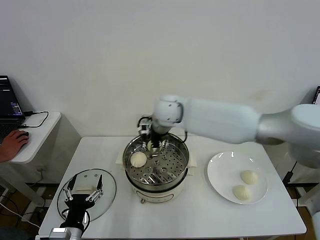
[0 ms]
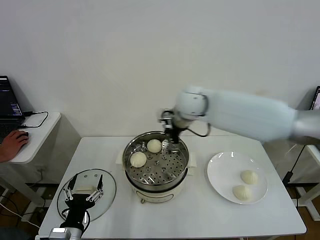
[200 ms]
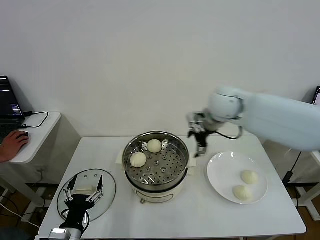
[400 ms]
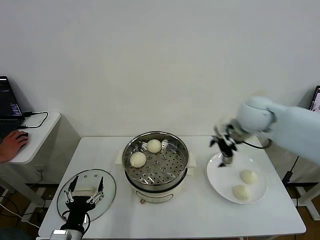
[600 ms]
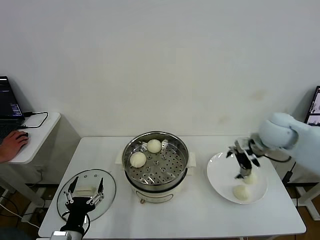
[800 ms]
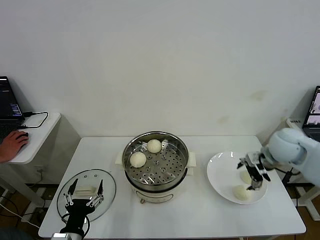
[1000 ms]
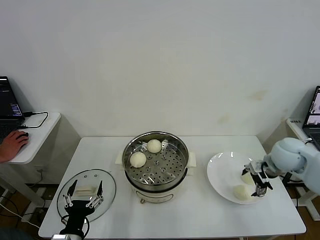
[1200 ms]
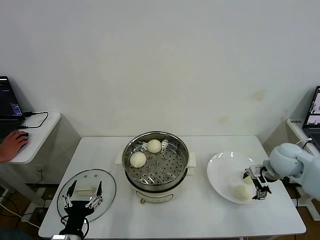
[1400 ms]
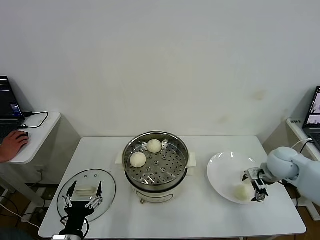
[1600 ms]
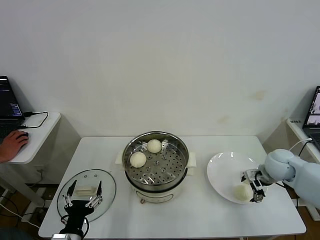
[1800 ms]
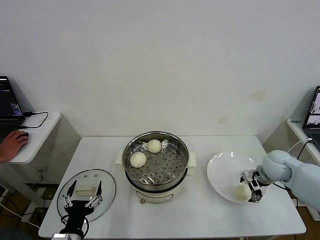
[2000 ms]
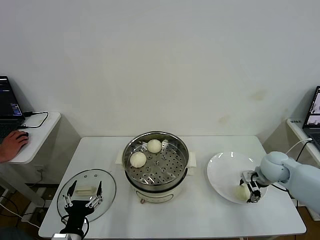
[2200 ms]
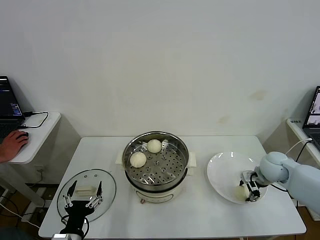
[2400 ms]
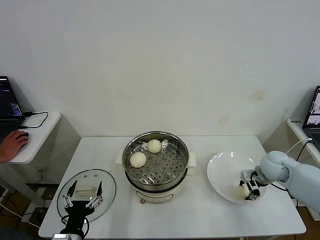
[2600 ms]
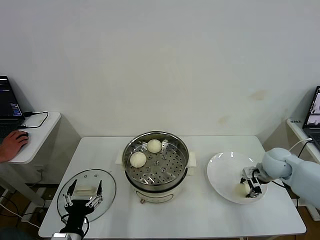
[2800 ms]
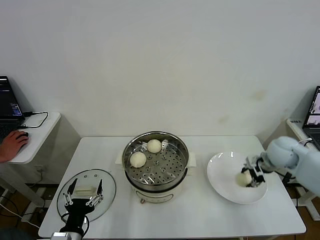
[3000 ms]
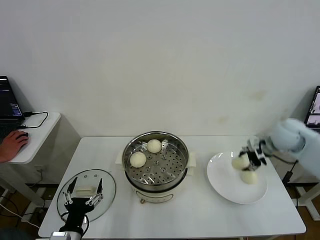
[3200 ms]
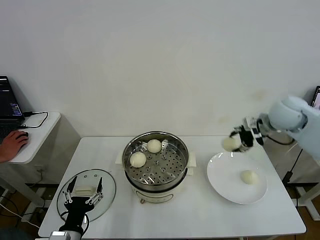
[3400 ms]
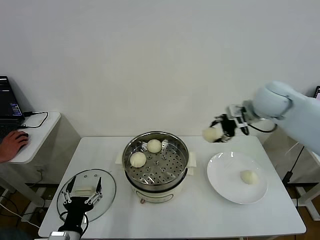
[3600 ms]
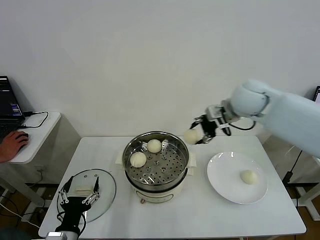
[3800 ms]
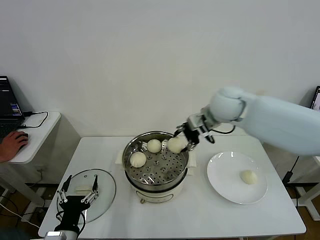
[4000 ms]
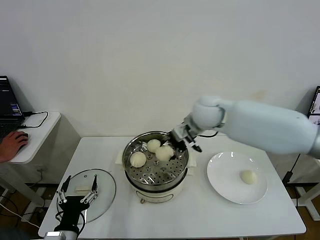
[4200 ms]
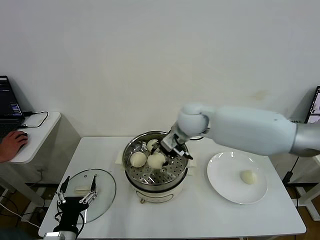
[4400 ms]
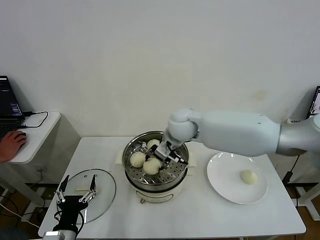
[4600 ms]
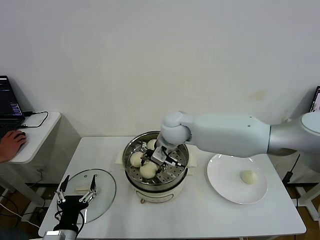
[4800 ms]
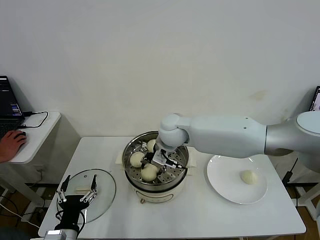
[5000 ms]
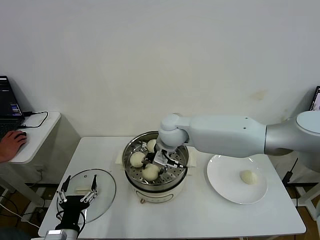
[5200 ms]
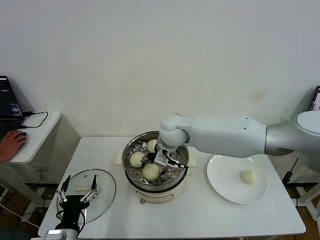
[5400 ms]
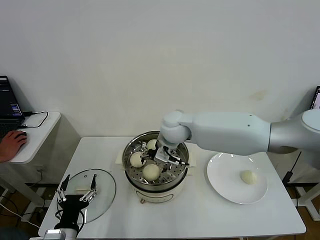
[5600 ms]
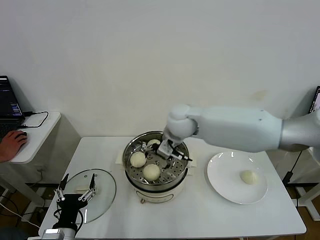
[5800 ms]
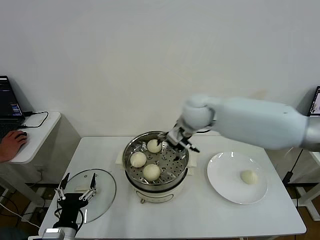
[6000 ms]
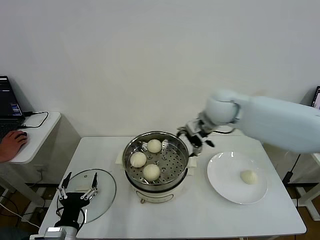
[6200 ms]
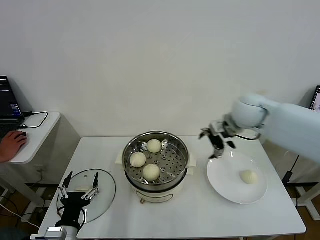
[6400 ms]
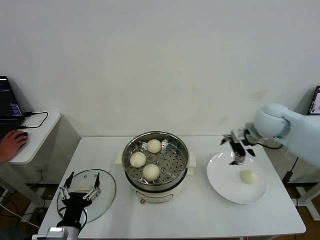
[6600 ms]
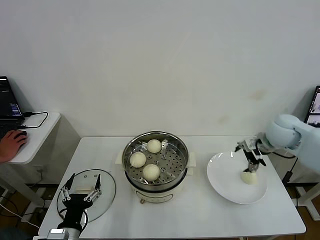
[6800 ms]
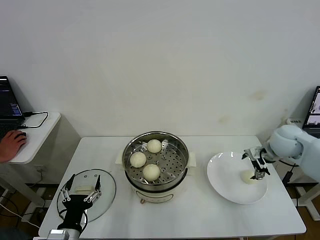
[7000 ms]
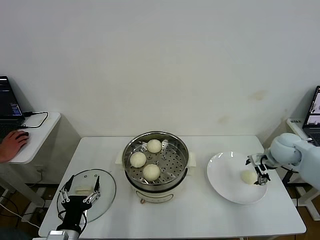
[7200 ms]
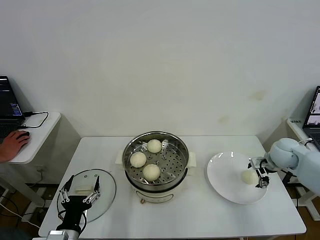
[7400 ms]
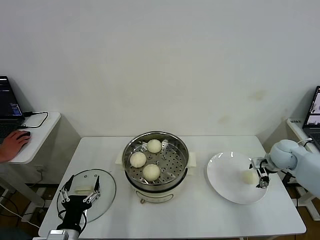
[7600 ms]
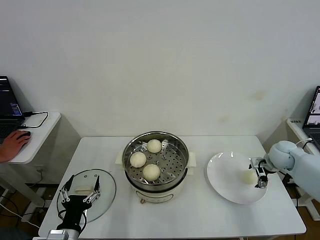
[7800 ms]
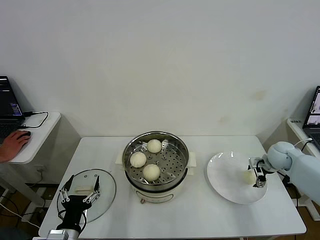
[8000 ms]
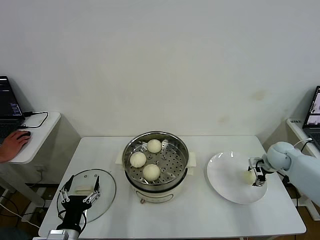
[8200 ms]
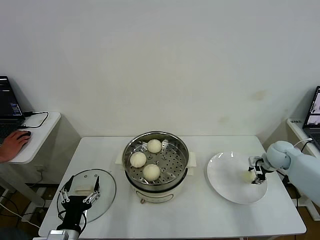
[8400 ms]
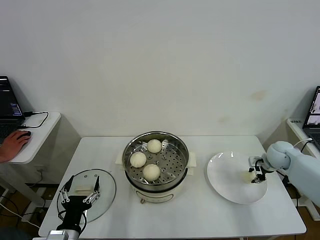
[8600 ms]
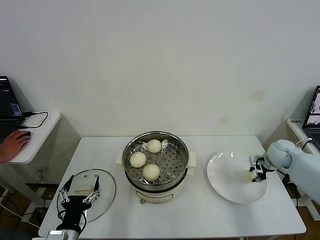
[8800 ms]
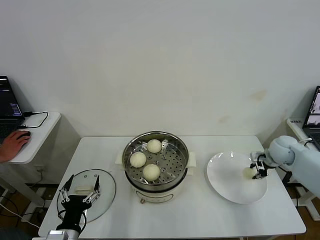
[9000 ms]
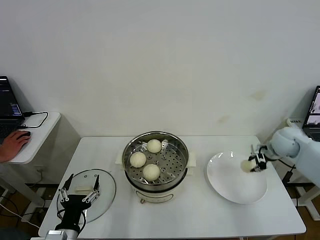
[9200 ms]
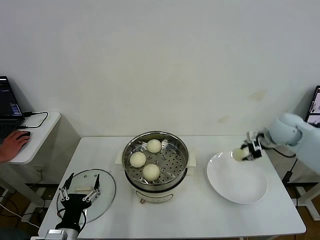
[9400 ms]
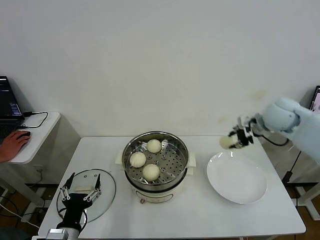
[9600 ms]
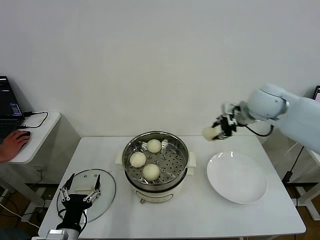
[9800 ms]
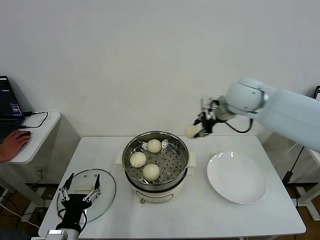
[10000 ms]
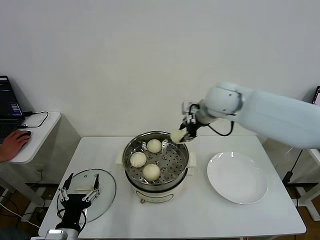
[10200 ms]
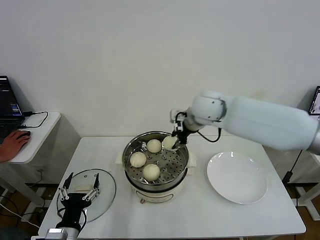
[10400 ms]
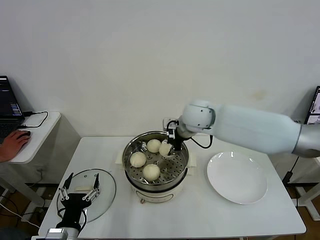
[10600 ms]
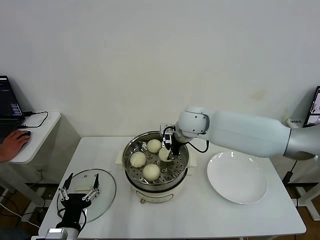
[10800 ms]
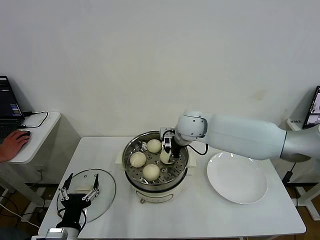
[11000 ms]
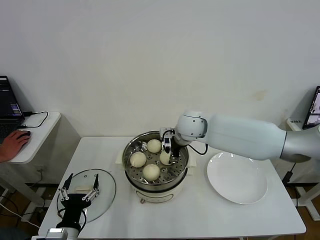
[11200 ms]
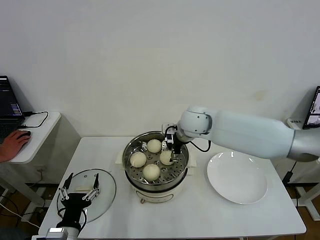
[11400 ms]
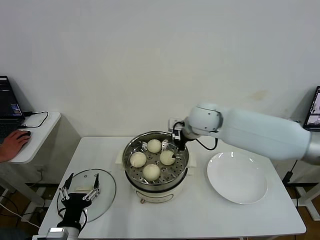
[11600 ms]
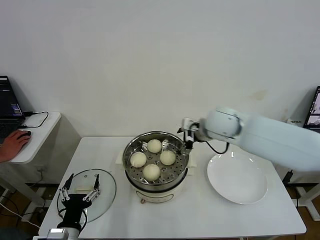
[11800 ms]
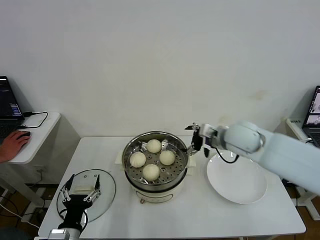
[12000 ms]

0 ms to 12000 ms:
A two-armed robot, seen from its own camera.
Task of the whole recording: take steamed baozi put them in steamer then cover it.
Step, 0 ms to 2400 ms: Grasp the baozi in the plate with right gripper.
Step, 2800 ms to 5600 ms: Place the baozi on the steamer with right gripper.
Step, 5800 ms to 8400 ms: Grasp the baozi in the plate with right gripper.
Step, 8600 ms to 11200 ms: Place the baozi on the steamer with right gripper.
0 ms to 1600 ms: The right gripper travels to the right and downward by about 40 cm.
1600 ms to 3000 ms: The right gripper changes place by some 5 cm, and closes its fingers.
3000 ms to 4400 ms: The right gripper is displaced to the left by roughly 30 cm.
4400 ms to 6000 ms: The right gripper opens.
6000 ms to 7600 ms: The right gripper heads to the right and downward, covering some 35 cm.
7600 ms to 9000 ms: The right gripper closes up.
9000 ms to 10400 ms: The right gripper goes about 35 cm to the left and upward.
10400 ms to 12000 ms: The right gripper travels to the right, backward and downward by some 15 cm, and opens its fingers.

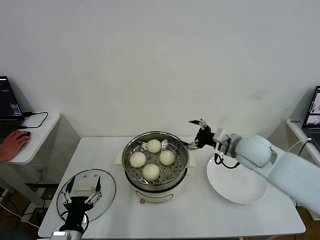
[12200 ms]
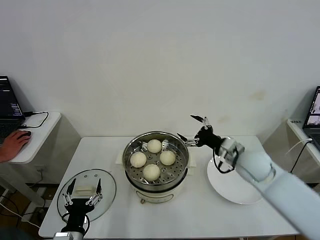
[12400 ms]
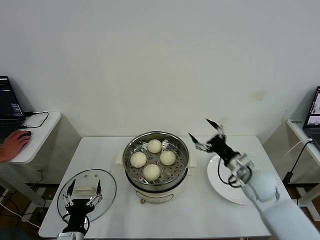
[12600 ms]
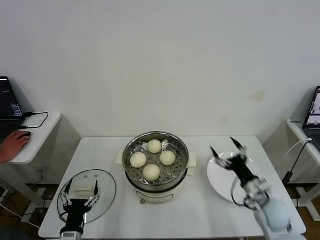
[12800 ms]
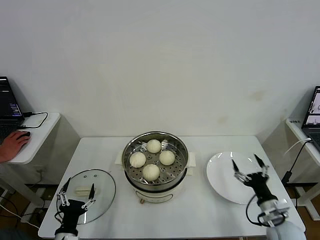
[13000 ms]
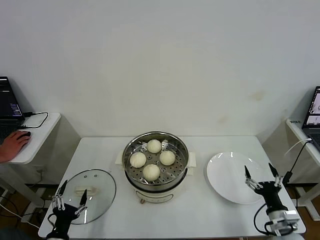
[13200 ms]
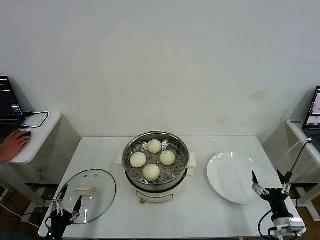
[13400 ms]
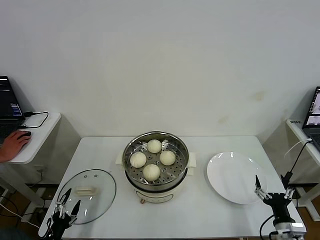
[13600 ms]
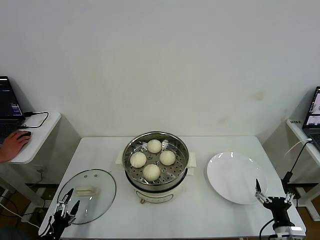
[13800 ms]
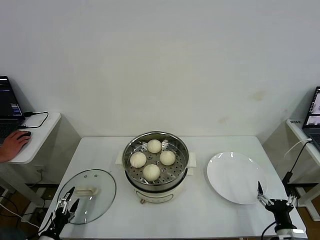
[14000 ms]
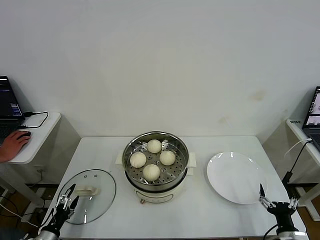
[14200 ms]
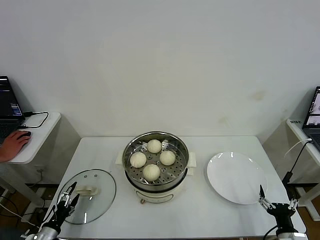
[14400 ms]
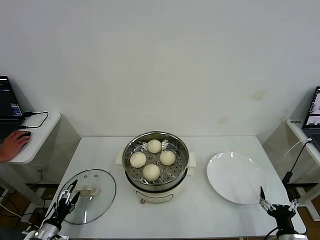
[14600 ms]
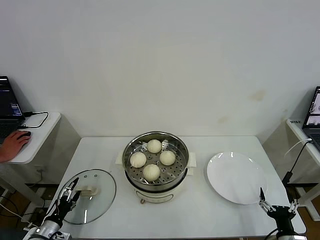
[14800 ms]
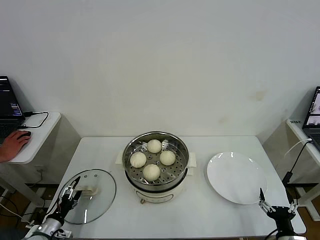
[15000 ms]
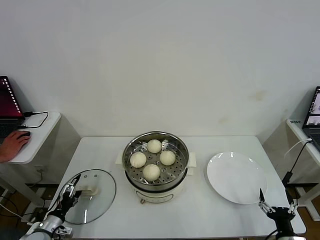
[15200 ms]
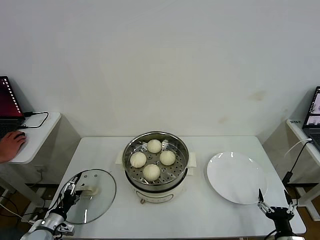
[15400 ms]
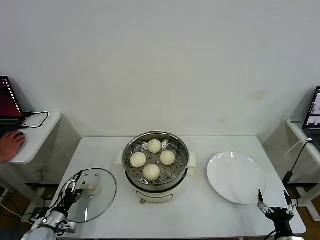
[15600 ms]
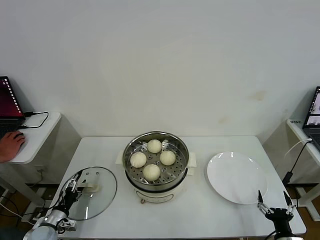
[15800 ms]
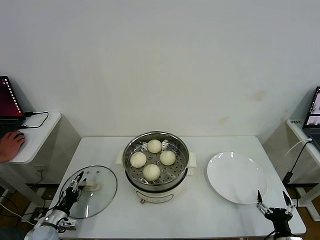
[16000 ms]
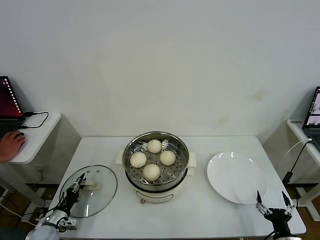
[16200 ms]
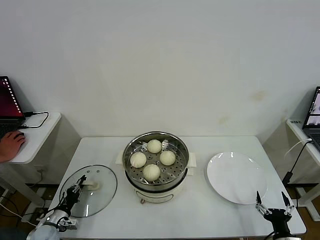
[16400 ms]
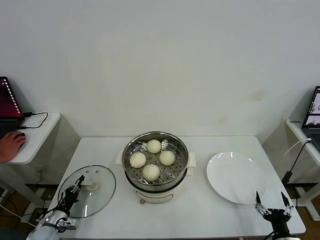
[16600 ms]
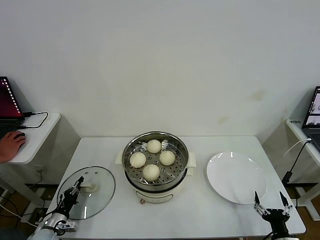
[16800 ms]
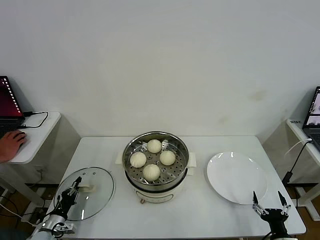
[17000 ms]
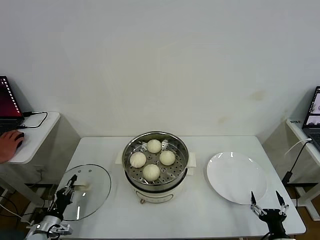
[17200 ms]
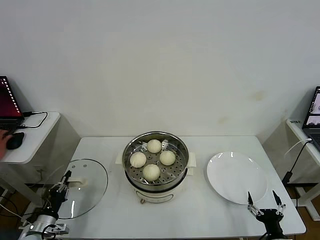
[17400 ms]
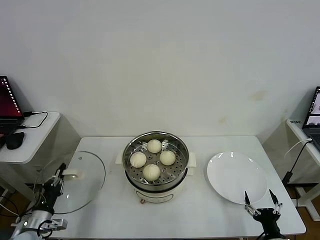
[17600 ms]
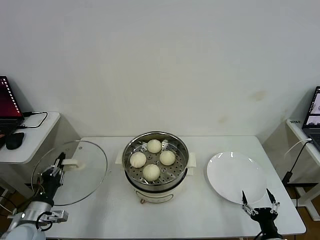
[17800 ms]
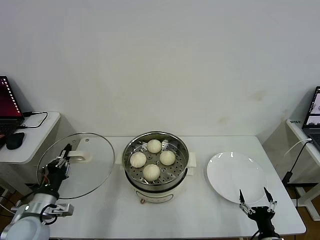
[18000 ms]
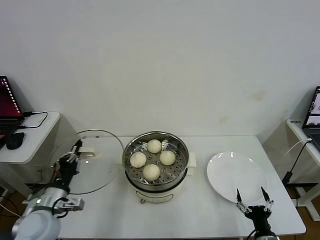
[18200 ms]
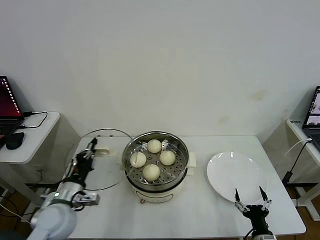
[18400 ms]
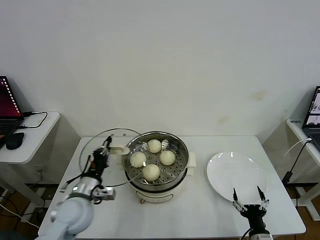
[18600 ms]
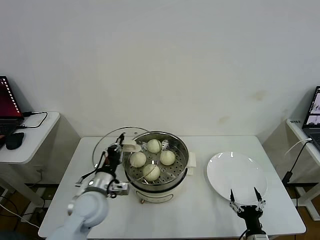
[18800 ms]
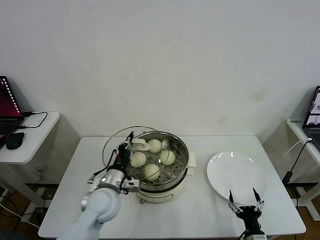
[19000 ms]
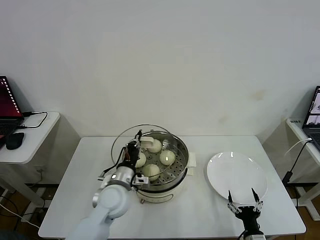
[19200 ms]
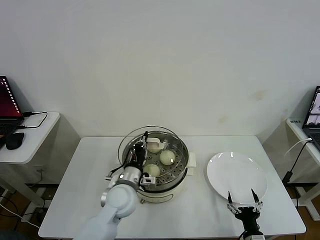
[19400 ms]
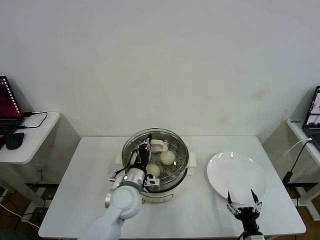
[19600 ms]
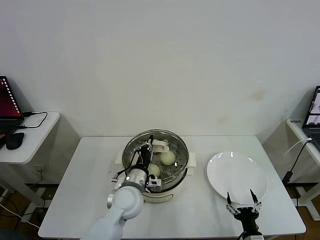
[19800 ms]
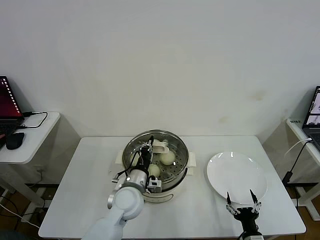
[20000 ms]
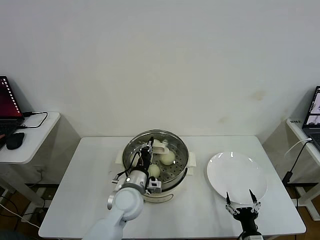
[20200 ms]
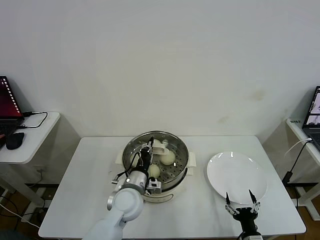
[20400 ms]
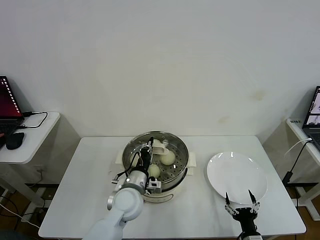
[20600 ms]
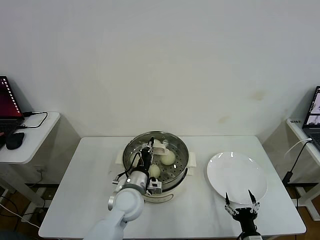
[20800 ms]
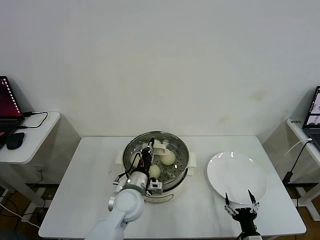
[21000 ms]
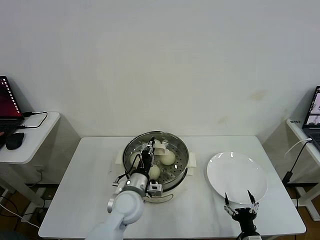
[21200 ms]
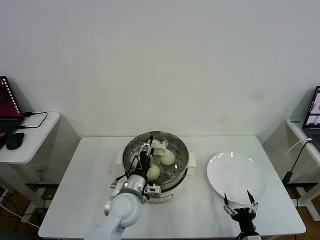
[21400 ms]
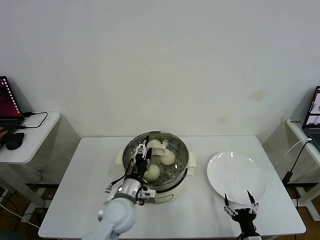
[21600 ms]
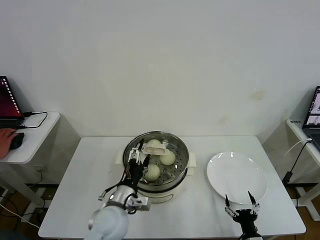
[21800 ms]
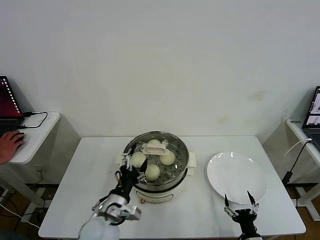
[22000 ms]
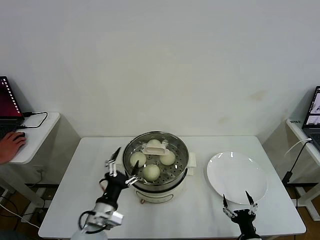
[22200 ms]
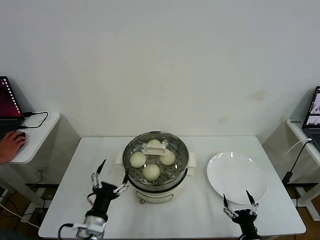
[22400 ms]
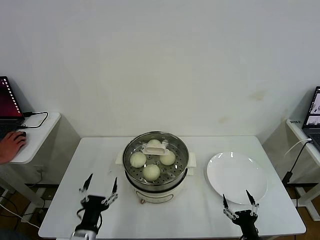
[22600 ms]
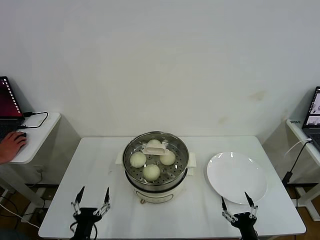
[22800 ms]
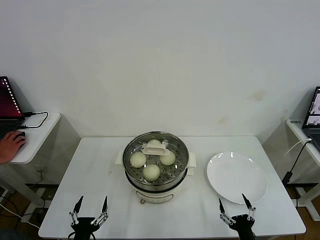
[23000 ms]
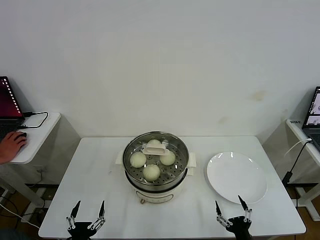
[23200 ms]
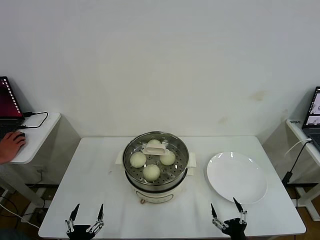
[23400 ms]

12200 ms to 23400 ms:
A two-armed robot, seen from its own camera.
Task of the whole recording: take steamed baozi put them in steamer then cover it.
Step, 12200 ms to 16600 ms: Grasp the pot lid with left gripper.
Step, 16800 ms to 21600 ms: Place the pot lid on the steamer with left gripper.
12200 ms to 13800 ms: The right gripper moves backward, downward and to the right, about 35 cm, while the left gripper heads to the left and downward, covering roughly 15 cm.
13800 ms to 15400 ms: The left gripper travels forward by some 10 cm.
15400 ms to 17000 ms: The left gripper closes its fingers.
17000 ms to 18600 ms: The right gripper travels to the left by some 5 cm. The left gripper travels upward and to the right by some 30 cm.
18600 ms to 20200 ms: The left gripper moves to the right, some 15 cm.
20200 ms to 21800 ms: The left gripper travels backward by some 5 cm, and opens up.
21800 ms to 23400 ms: The left gripper goes some 25 cm backward, to the left and downward; the right gripper changes place by approximately 5 cm.
